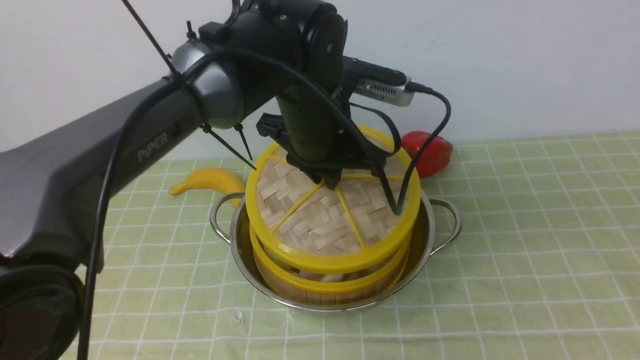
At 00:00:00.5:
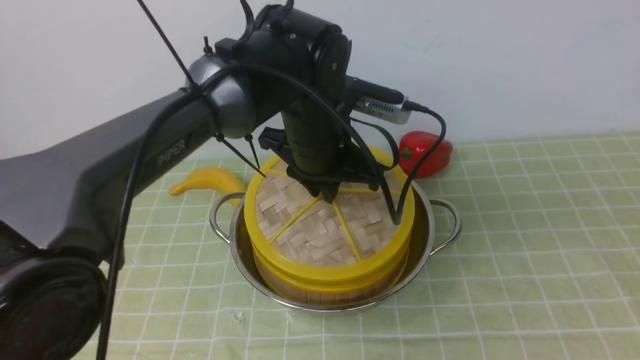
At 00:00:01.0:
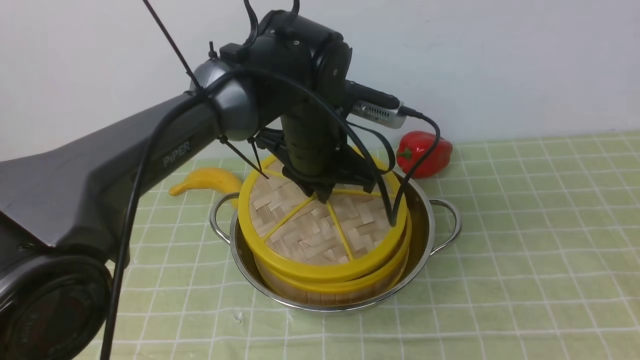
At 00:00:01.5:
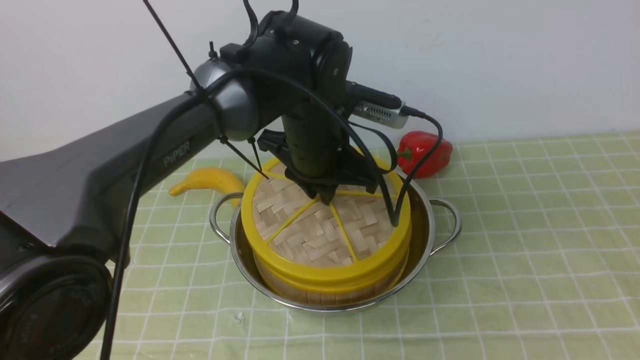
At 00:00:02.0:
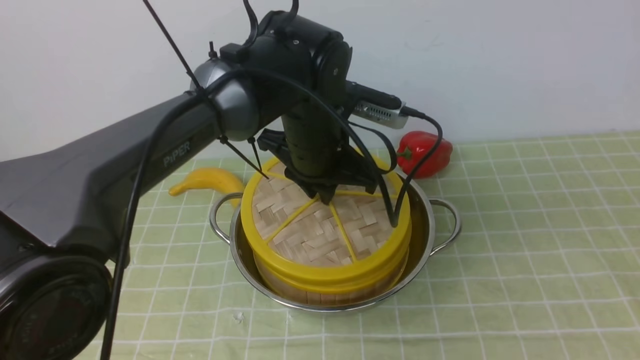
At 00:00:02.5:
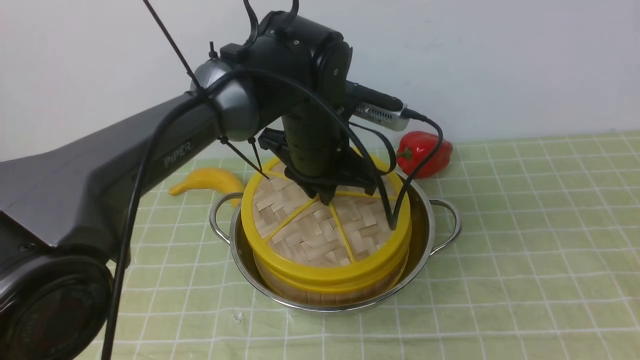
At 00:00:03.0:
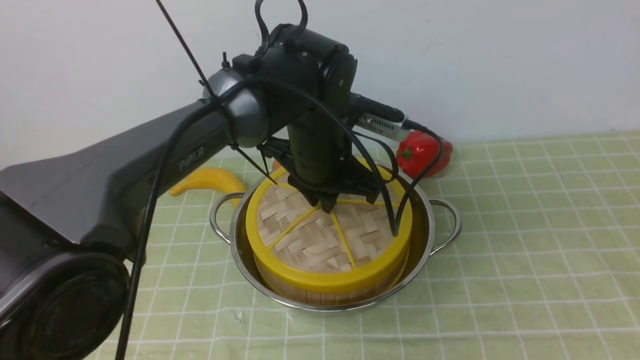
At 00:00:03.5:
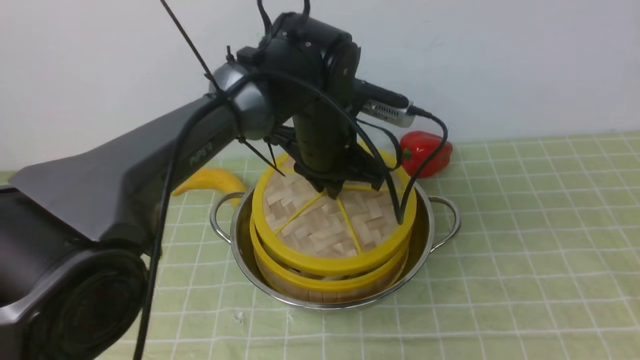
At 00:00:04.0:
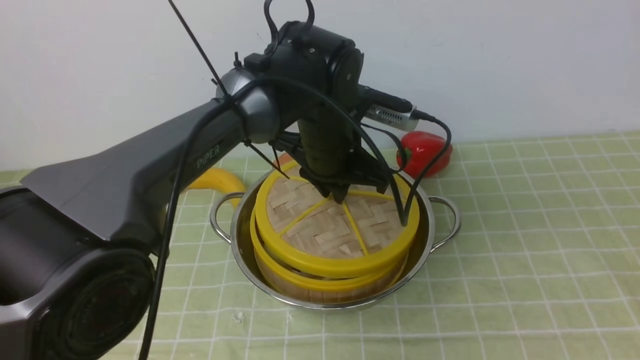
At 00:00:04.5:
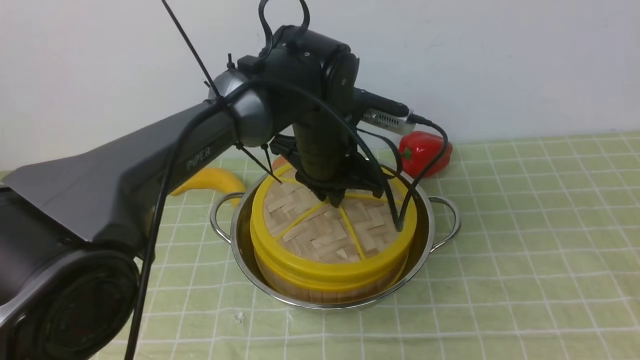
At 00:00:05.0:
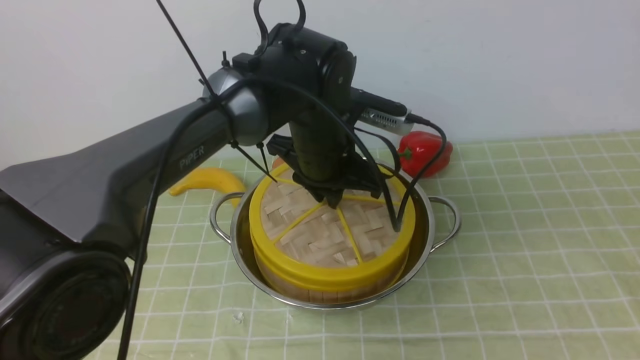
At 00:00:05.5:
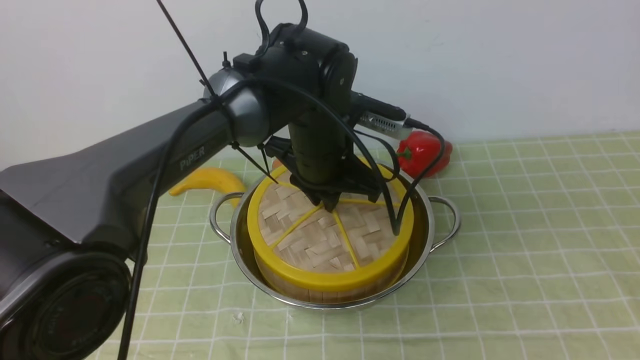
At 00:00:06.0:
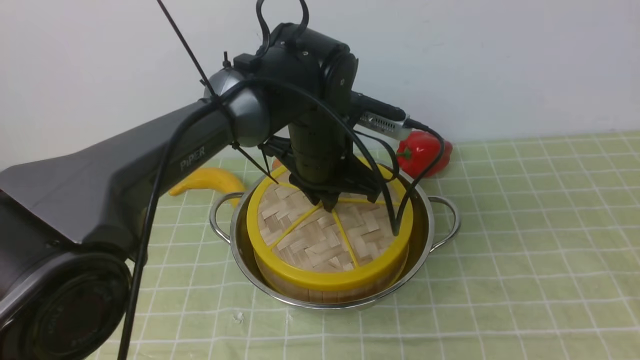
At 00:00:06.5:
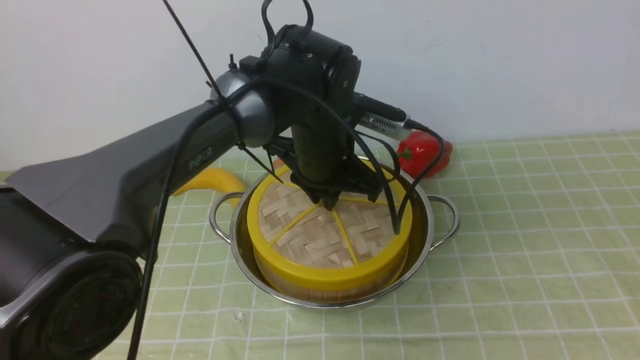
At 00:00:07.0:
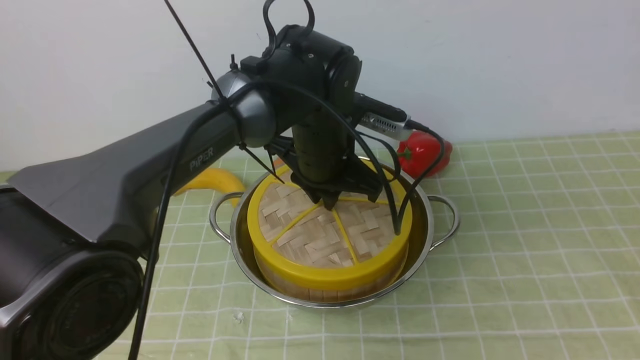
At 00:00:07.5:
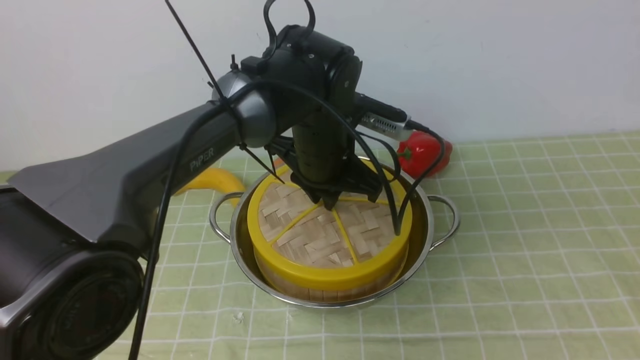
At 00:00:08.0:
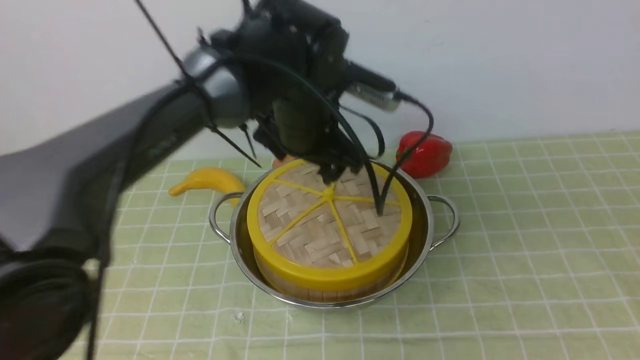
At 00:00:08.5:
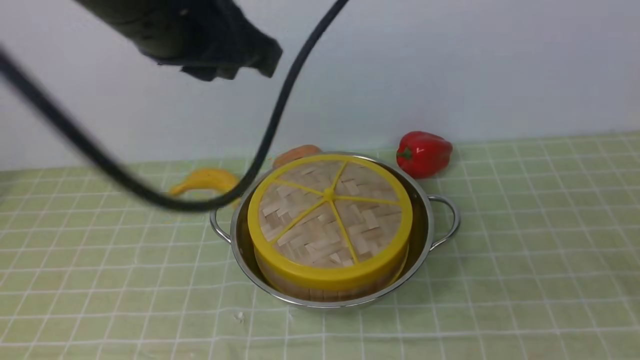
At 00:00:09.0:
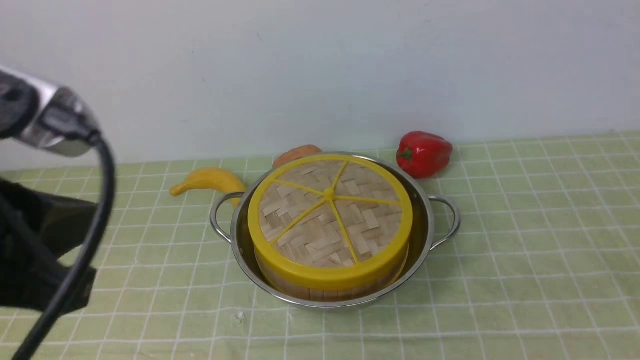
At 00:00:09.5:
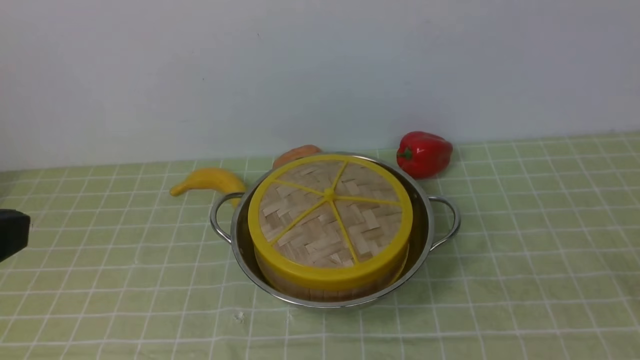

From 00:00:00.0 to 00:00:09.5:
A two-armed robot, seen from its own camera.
Task of the whole recording: place the steamer in the pot on the green tablecloth, and put the lid on the steamer.
Step, from 00:00:00.0 to 00:00:08.5: use the left arm to place the steamer lid on the steamer.
From 00:00:00.0 to 00:00:05.5: The grippers move only a little.
From 00:00:05.5 to 00:00:07.5: Both grippers stay about where they are.
From 00:00:07.5 to 00:00:09.5: The right gripper heads downward, covering some 10 cm, and closes its fingers; the left gripper moves backward, to the left and upward, roughly 40 cm, and closes up.

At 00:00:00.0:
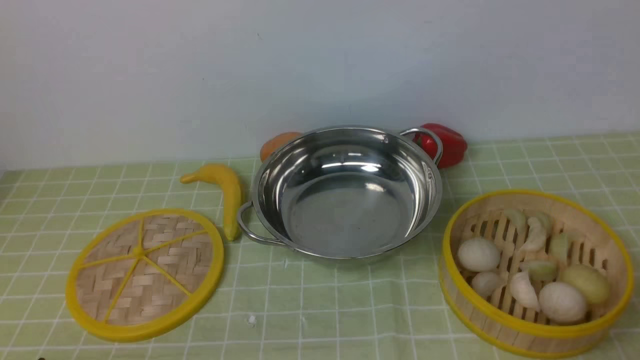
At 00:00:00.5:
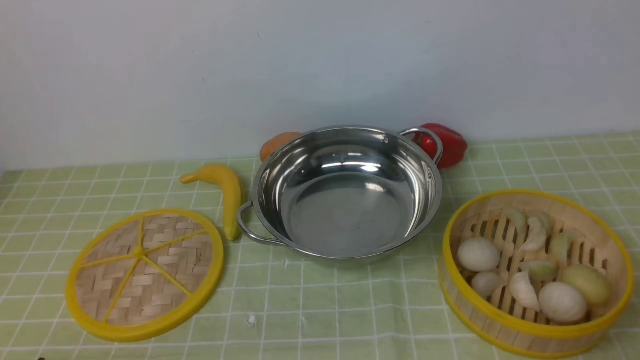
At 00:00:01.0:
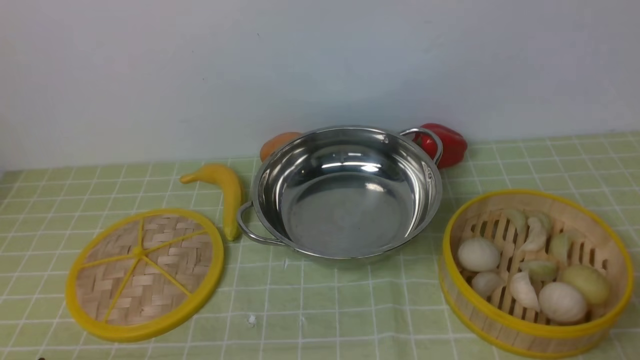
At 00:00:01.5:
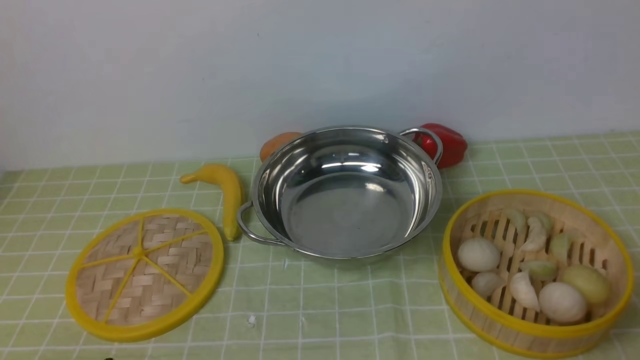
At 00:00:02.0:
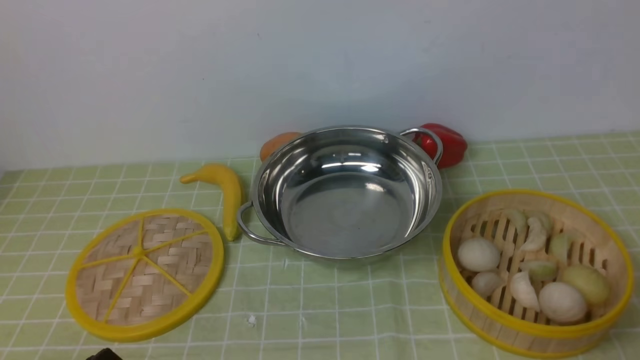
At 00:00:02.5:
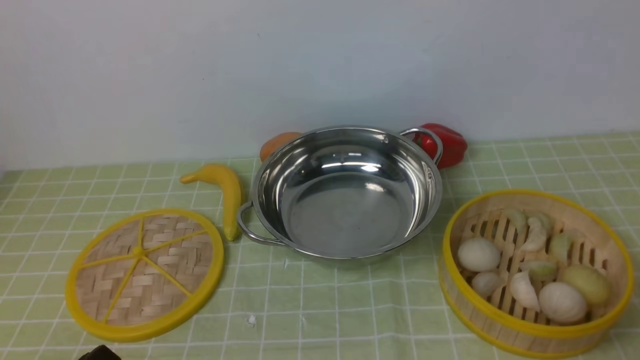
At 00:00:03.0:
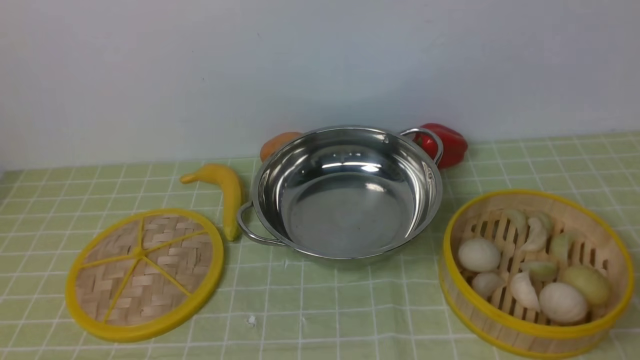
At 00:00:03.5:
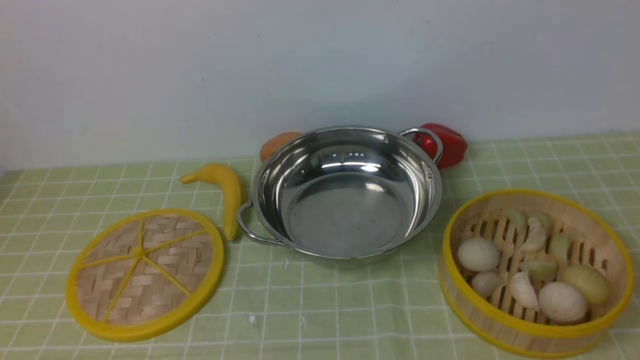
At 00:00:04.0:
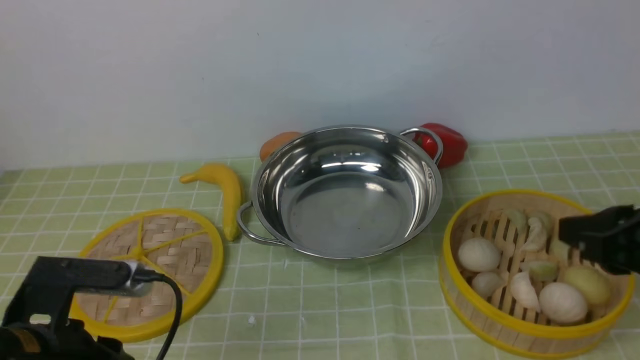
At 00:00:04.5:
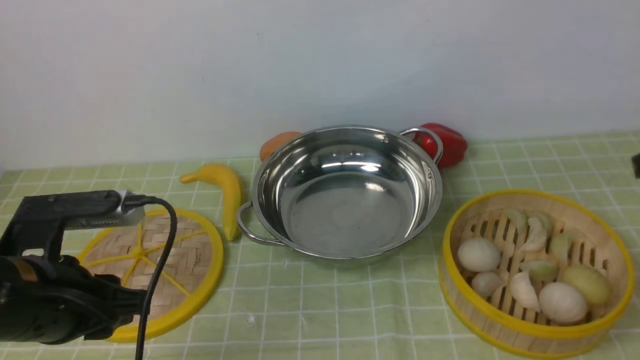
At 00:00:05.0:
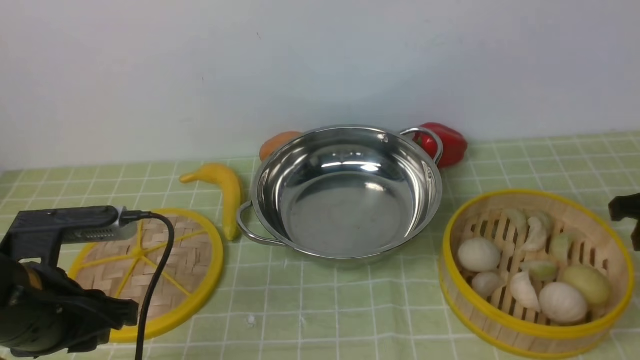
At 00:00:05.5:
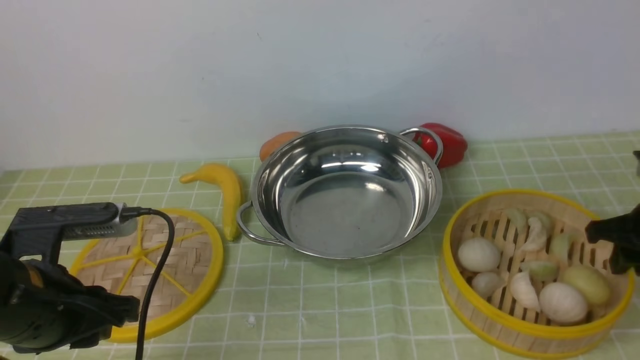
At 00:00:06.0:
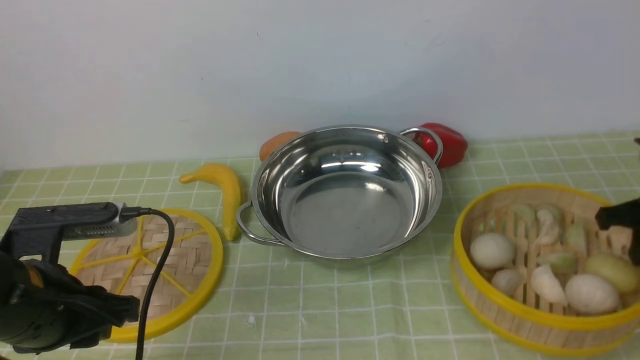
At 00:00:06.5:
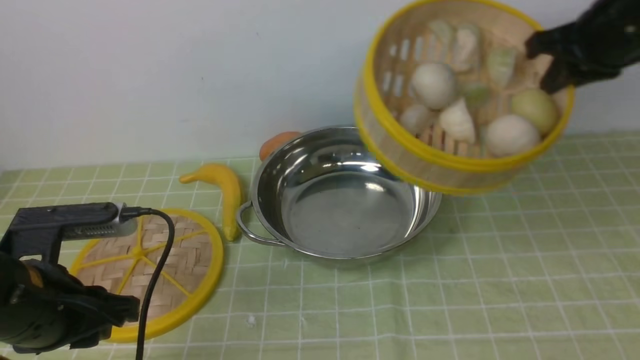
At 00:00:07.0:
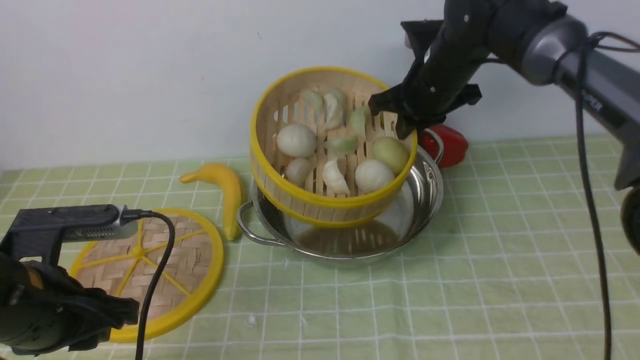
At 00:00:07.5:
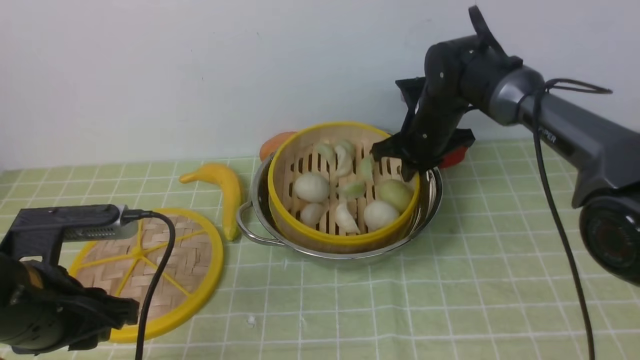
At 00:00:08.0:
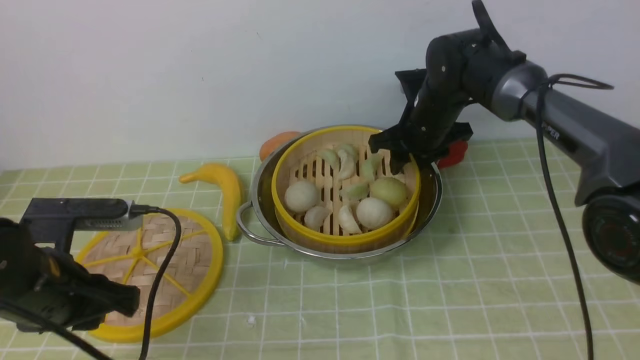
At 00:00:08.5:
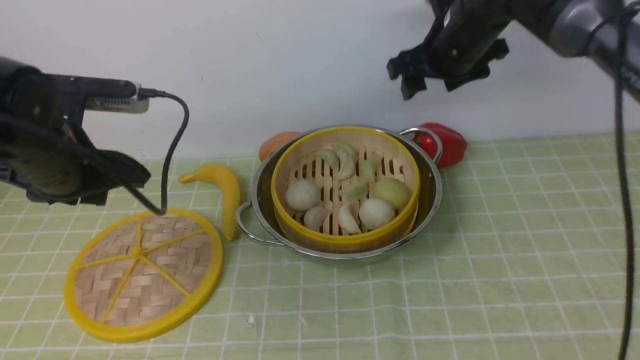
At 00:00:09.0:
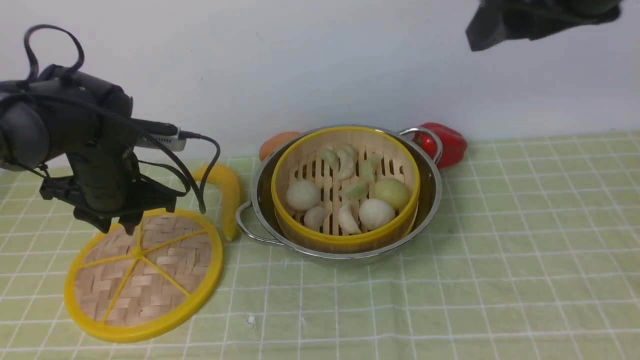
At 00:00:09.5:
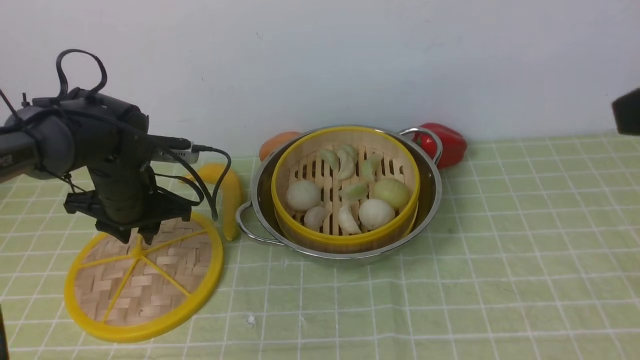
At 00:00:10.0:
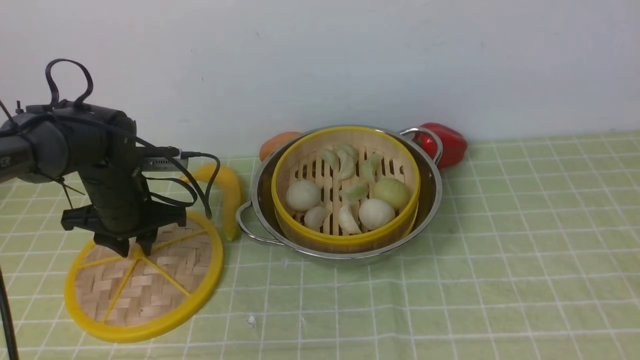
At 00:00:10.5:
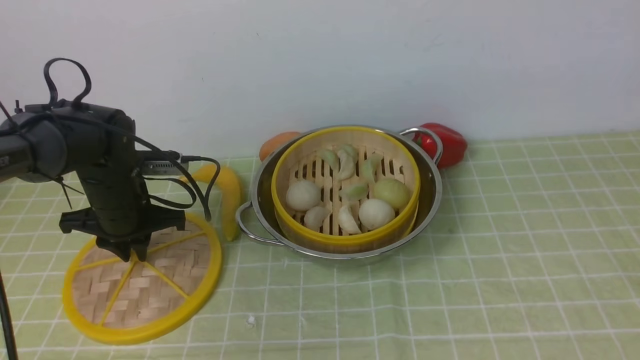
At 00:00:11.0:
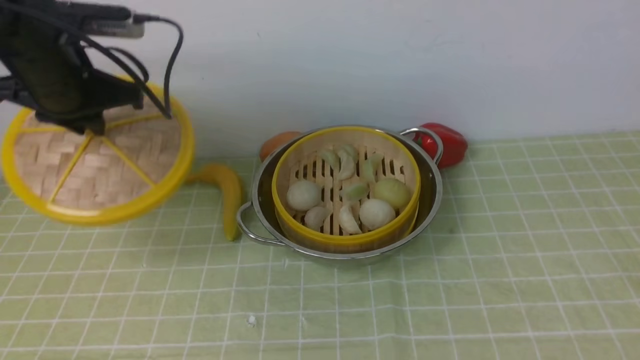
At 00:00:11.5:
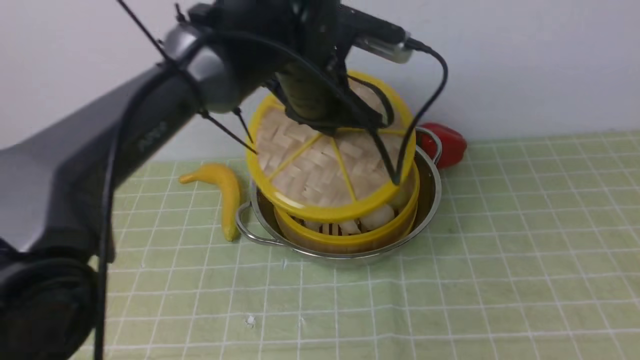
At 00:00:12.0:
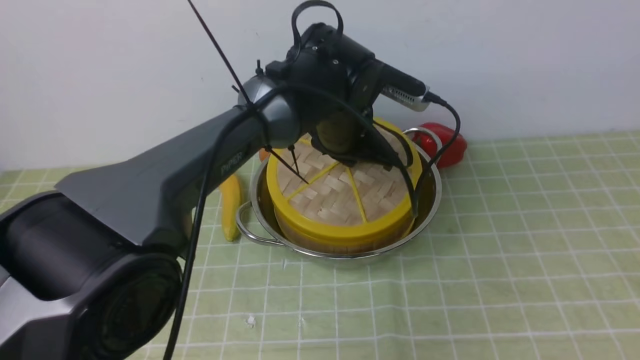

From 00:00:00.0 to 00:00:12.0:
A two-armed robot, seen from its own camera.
Task of the whole recording: place the steamer in the pot on the green tablecloth, and put the lid on the steamer.
Step, from 00:00:00.0 to 00:00:06.0: use the right arm to lift the steamer closest to it.
Step, from 00:00:06.5 to 00:00:09.0: use the right arm to put the steamer into the iron steamer pot in the middle.
Step, from 00:00:09.5 to 00:00:10.5: use the left arm to lift the lid of the steamer.
From 00:00:02.0 to 00:00:04.0: The right gripper goes about 15 cm forward and upward. The left gripper shifts about 10 cm forward, and moves roughly 15 cm upward and comes back.
From 00:00:04.0 to 00:00:06.0: The right gripper moves forward, to the right and downward, roughly 15 cm.
From 00:00:06.0 to 00:00:08.0: The right gripper heads to the left and forward, covering some 25 cm, and opens.
From 00:00:08.0 to 00:00:10.0: The left gripper travels forward and downward by roughly 15 cm; the right gripper travels backward and upward by roughly 40 cm, and opens up.
From 00:00:10.0 to 00:00:12.0: The left gripper travels to the right by about 25 cm.
